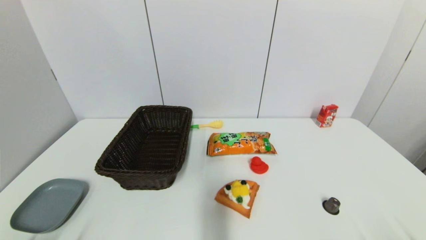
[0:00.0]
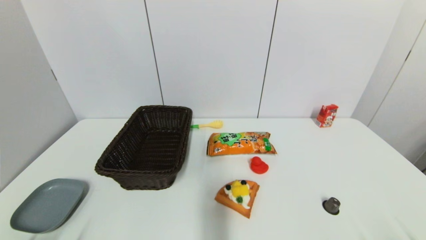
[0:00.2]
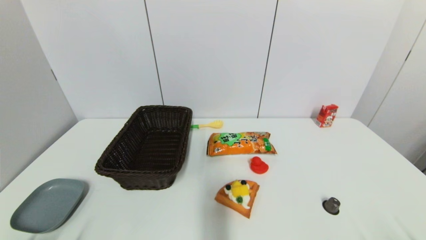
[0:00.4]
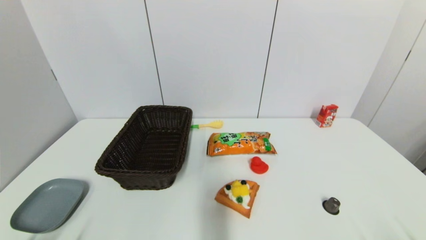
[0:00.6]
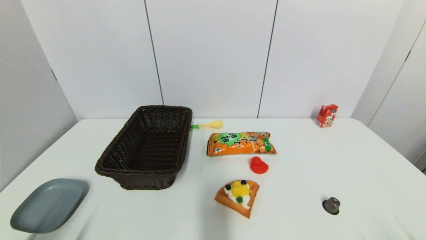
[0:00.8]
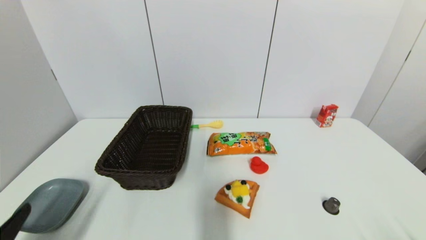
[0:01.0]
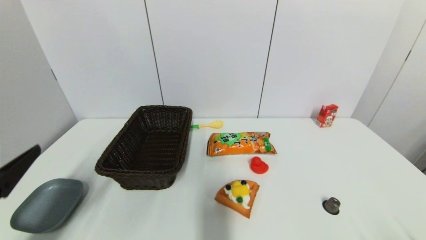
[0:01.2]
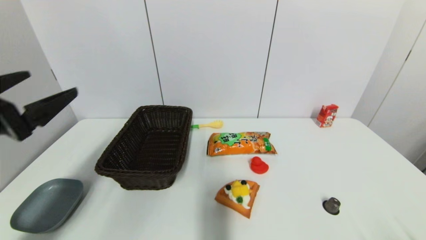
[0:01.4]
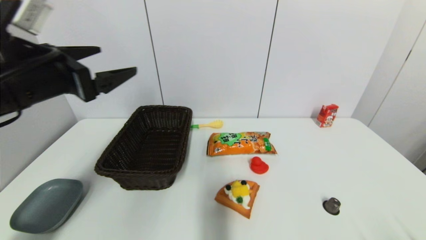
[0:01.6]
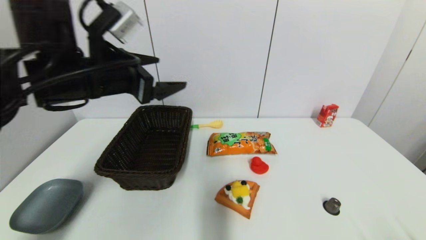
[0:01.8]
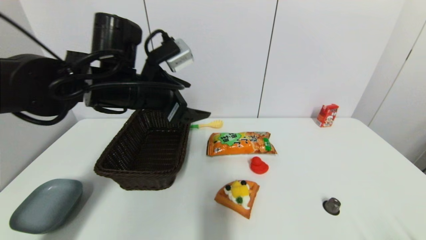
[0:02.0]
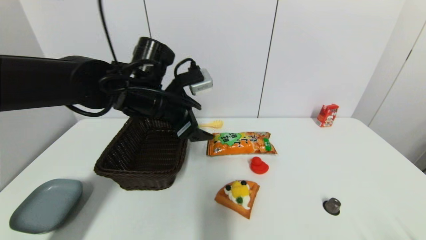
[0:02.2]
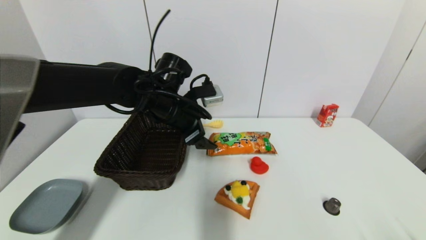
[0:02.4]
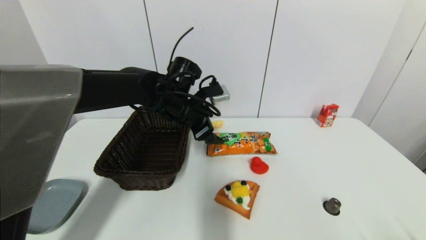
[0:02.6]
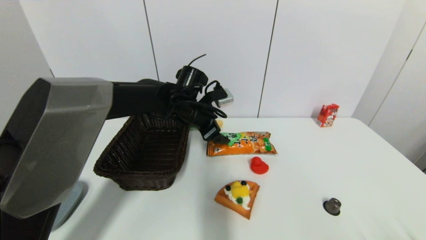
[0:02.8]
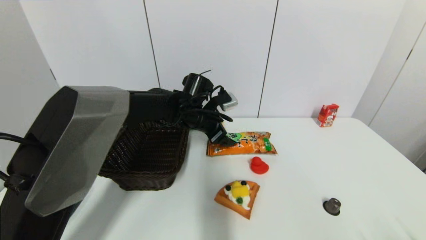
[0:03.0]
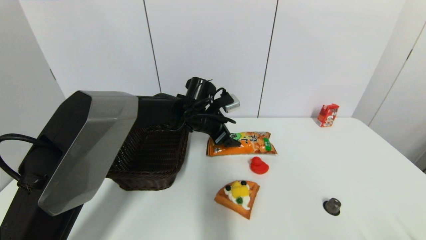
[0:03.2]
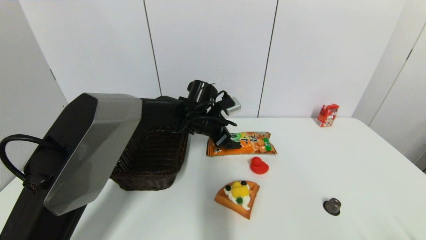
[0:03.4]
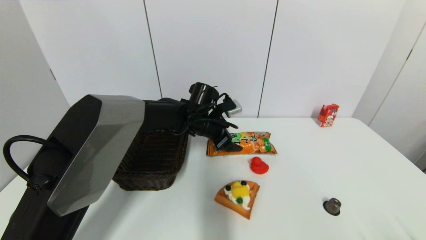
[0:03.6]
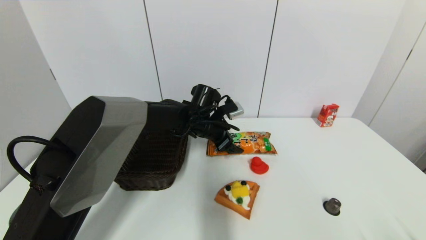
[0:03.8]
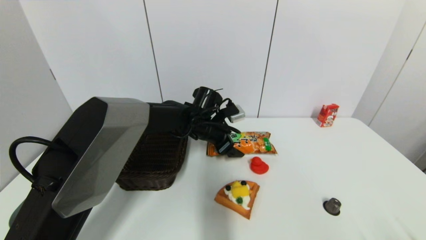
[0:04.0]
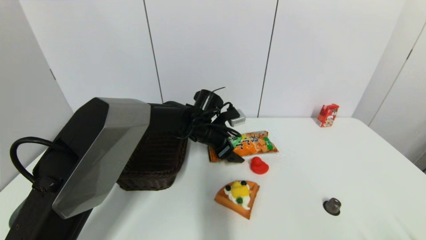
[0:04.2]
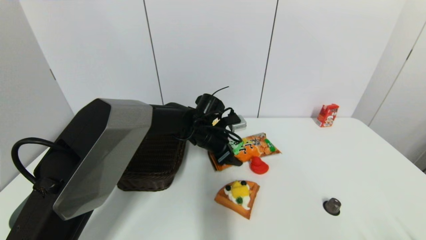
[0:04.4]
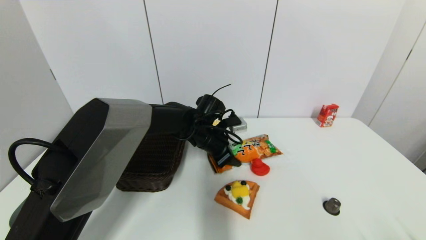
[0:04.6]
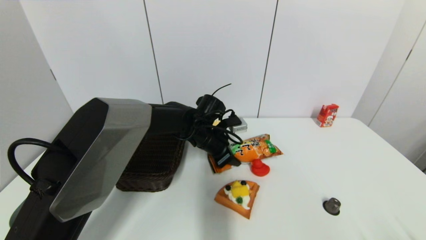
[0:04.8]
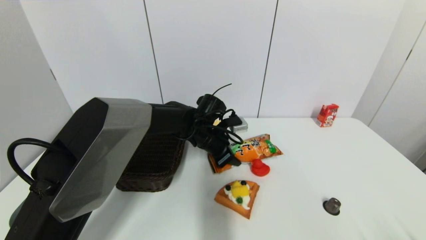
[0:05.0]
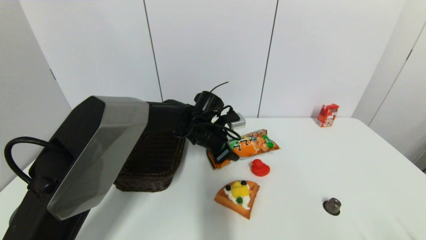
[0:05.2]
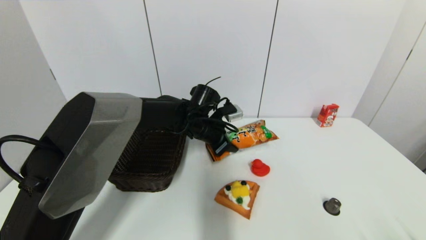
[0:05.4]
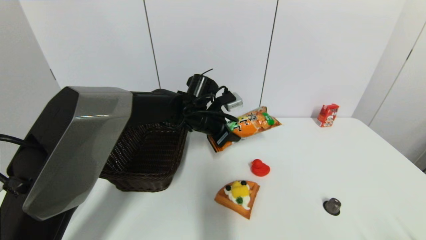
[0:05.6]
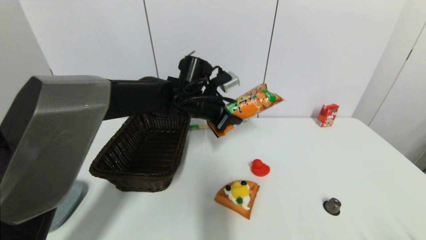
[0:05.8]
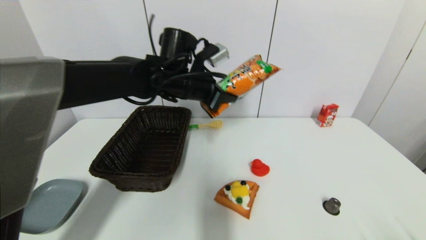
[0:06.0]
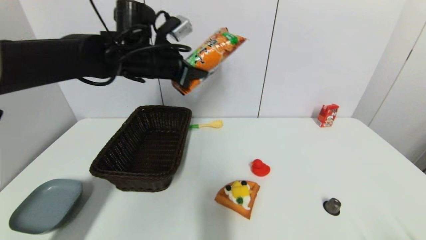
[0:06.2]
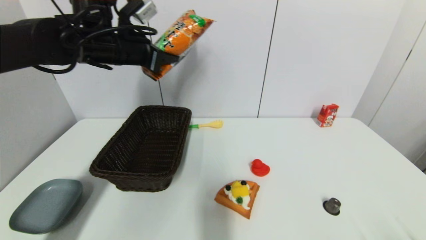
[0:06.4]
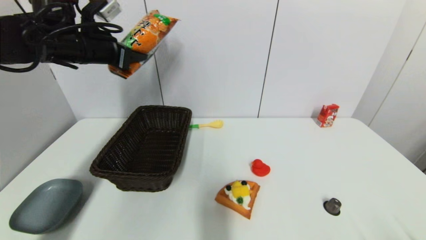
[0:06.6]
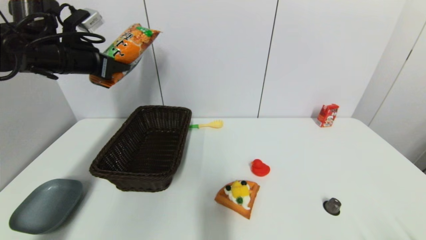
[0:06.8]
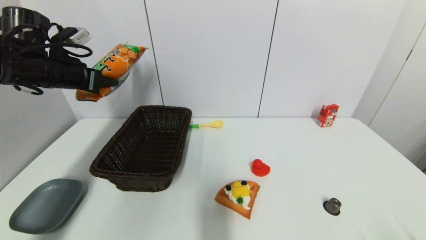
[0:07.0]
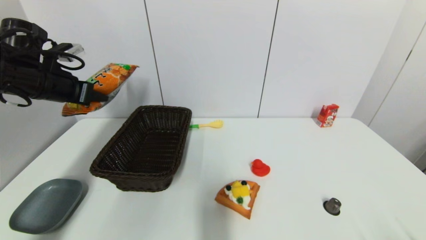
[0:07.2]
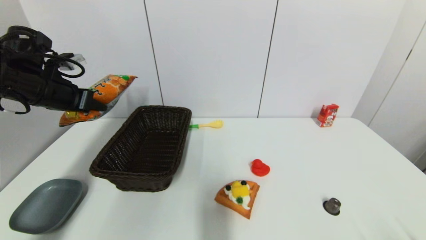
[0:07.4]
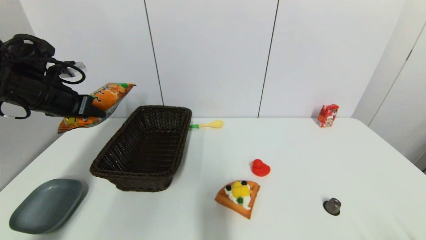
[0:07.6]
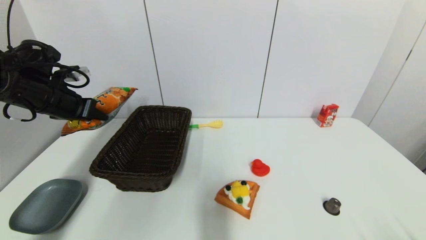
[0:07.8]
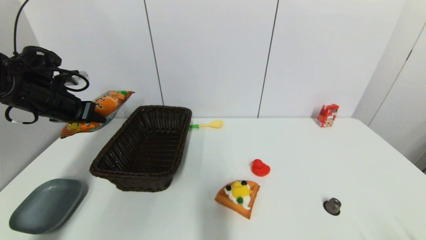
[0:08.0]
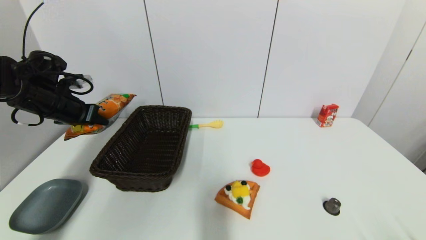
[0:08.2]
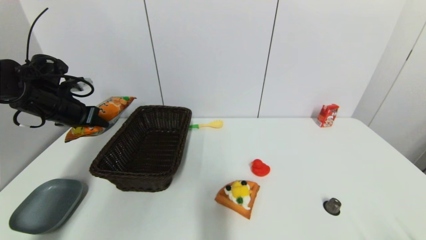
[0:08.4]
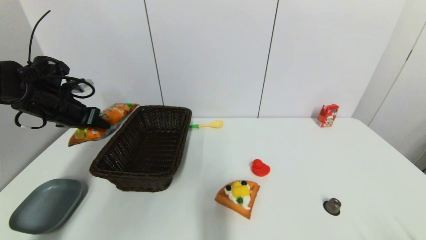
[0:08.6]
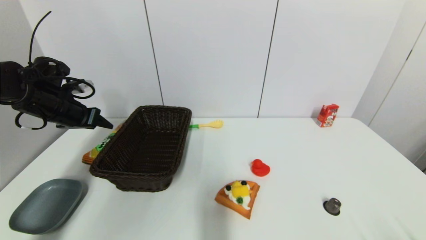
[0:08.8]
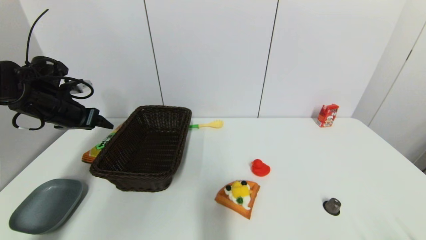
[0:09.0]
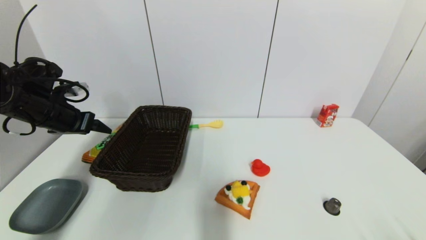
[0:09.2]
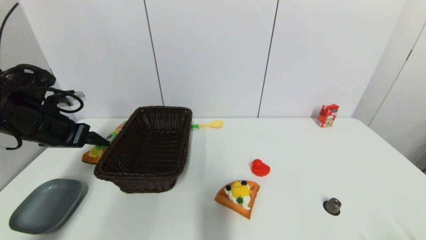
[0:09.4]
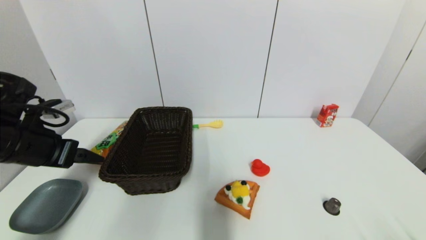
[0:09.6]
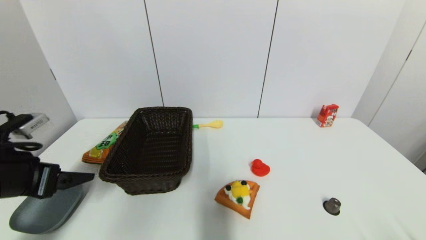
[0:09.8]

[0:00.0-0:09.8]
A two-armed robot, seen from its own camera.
Step, 0:01.0 to 0:04.8: Grasp the cookie with left gripper.
Step, 0:05.2 to 0:08.8: Place the cookie on the table with left gripper.
0:00.0 to 0:01.4: The left gripper is displaced upward and forward by roughly 30 cm.
0:01.4 to 0:02.8: The left gripper travels to the right, forward and downward by about 35 cm.
0:02.8 to 0:04.2: The left gripper heads downward, covering some 5 cm.
0:04.2 to 0:05.6: The left gripper is displaced upward by about 5 cm, and closes its fingers.
0:05.6 to 0:07.0: The left gripper heads to the left and upward, covering about 30 cm.
0:07.0 to 0:08.4: The left gripper travels downward by some 5 cm.
0:08.4 to 0:09.8: The left gripper goes roughly 20 cm backward, and opens its fingers.

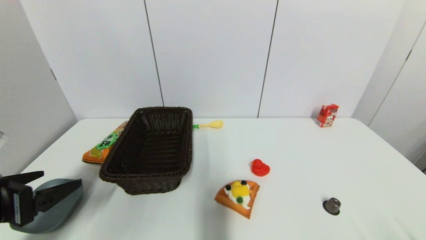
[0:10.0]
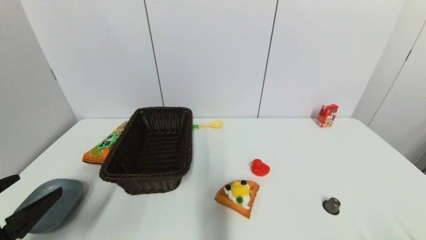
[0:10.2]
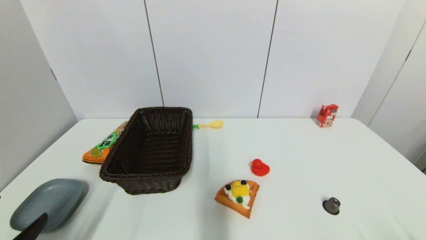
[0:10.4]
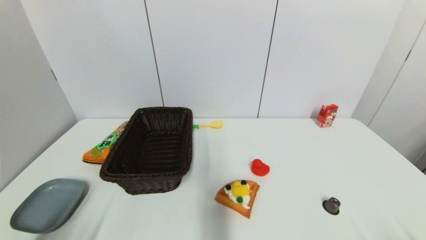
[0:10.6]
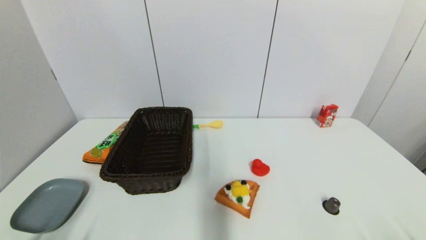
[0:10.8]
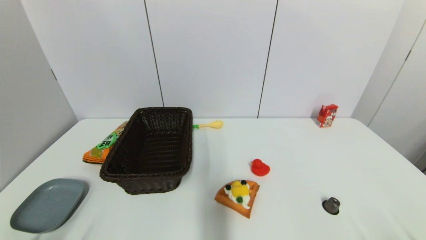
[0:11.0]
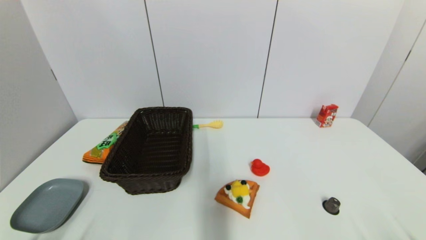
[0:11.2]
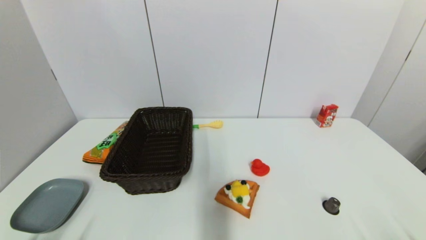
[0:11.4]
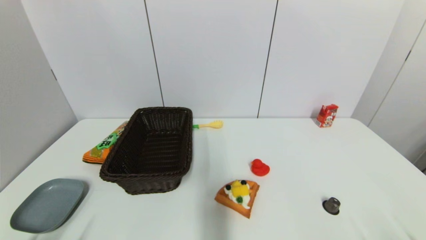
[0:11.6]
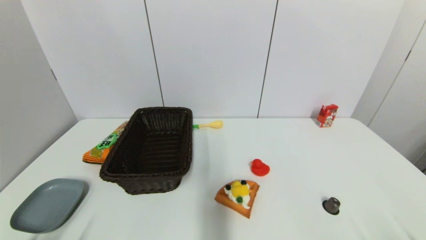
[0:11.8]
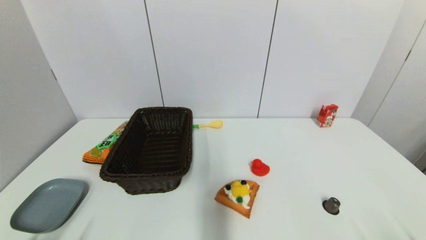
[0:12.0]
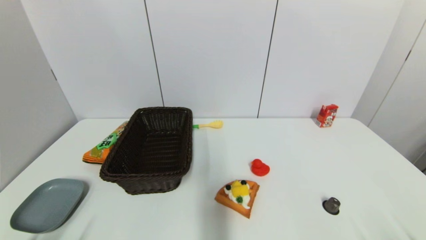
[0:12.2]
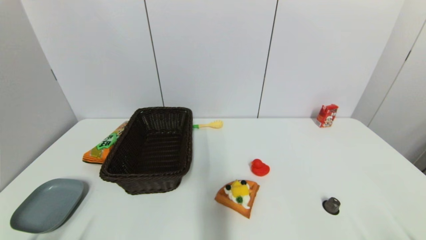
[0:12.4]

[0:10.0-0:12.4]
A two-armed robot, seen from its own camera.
0:10.0 to 0:11.2: The left gripper goes roughly 15 cm backward and downward.
0:11.2 to 0:12.4: Both grippers stay put.

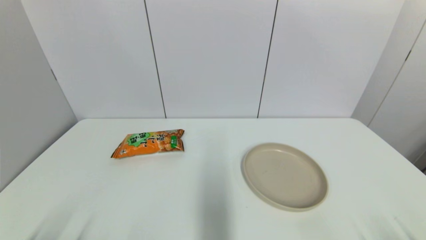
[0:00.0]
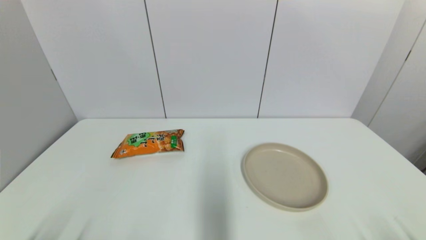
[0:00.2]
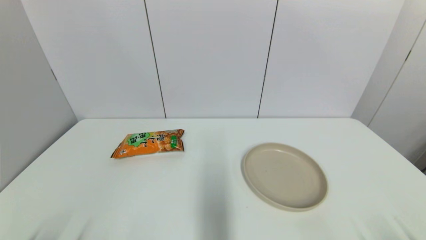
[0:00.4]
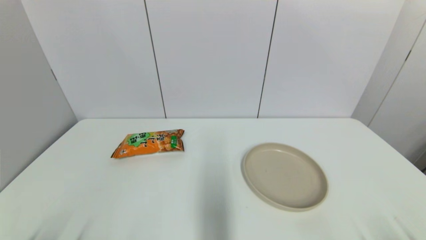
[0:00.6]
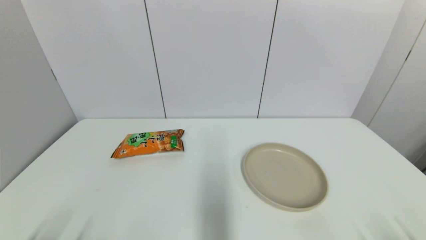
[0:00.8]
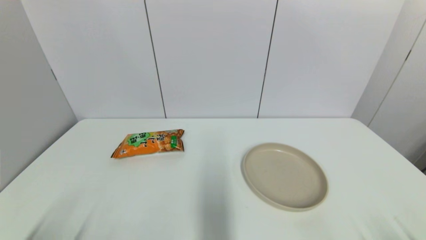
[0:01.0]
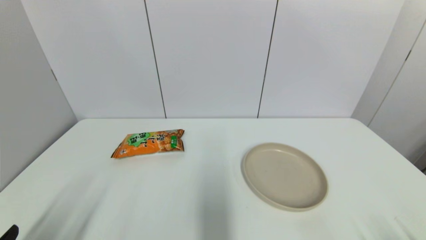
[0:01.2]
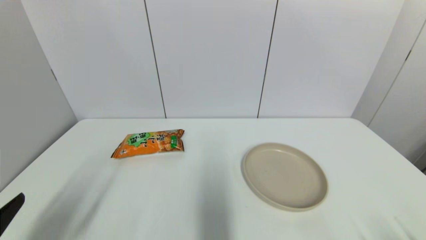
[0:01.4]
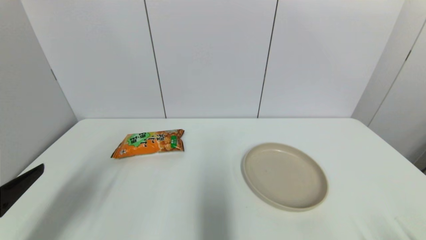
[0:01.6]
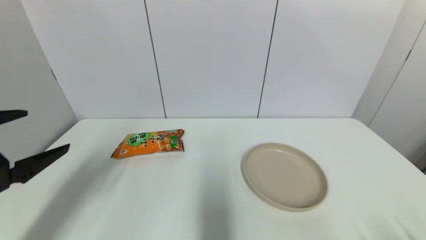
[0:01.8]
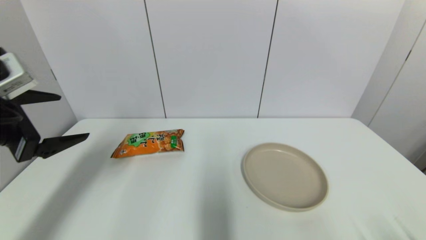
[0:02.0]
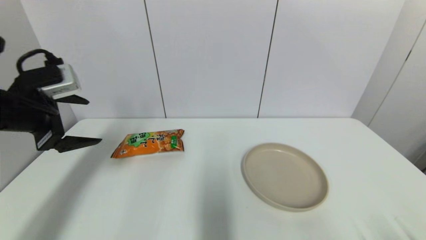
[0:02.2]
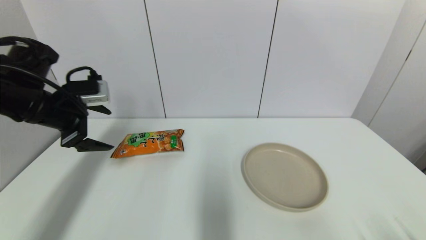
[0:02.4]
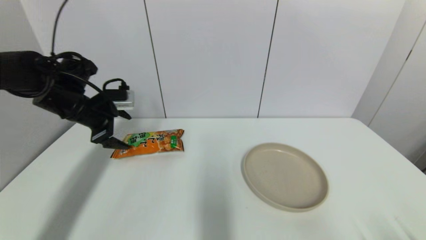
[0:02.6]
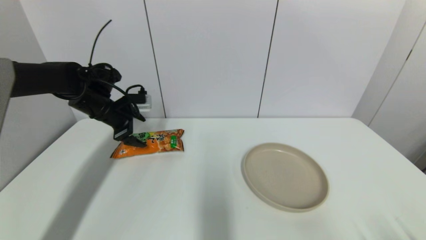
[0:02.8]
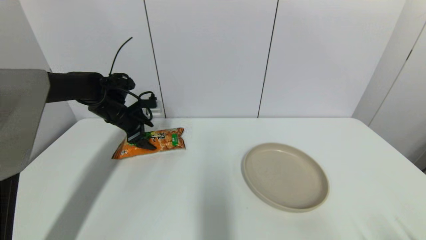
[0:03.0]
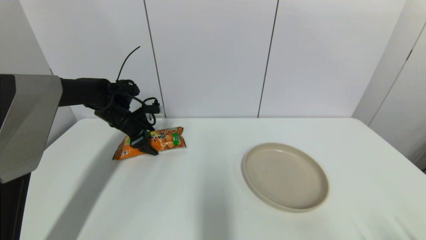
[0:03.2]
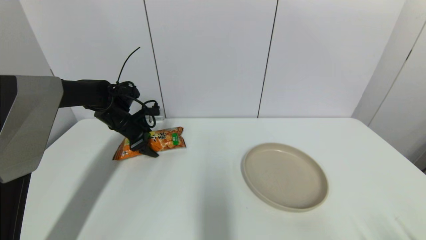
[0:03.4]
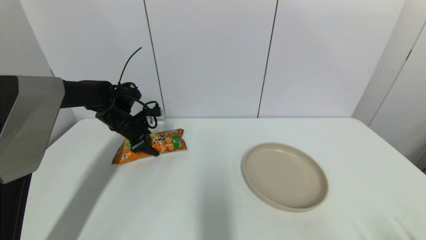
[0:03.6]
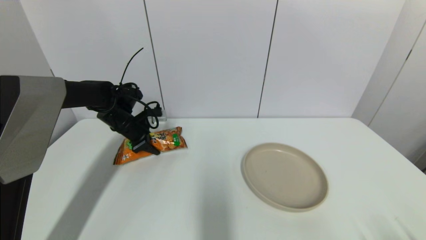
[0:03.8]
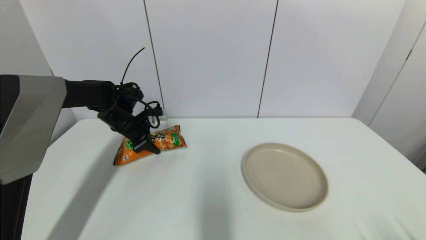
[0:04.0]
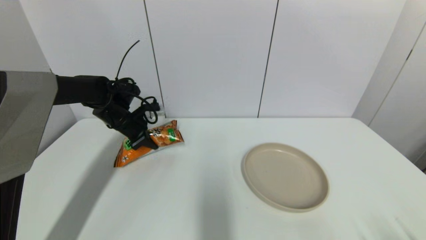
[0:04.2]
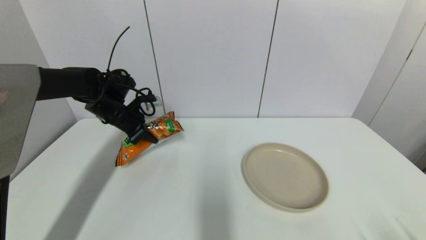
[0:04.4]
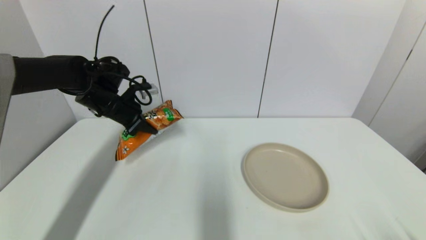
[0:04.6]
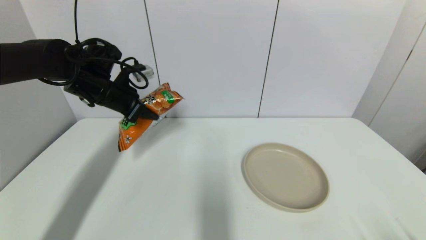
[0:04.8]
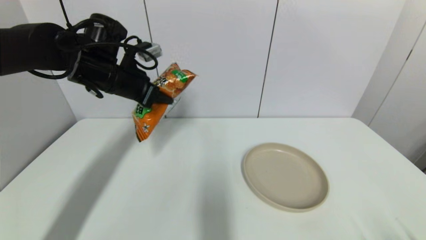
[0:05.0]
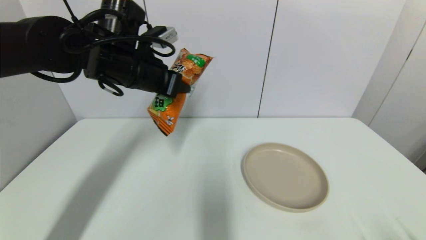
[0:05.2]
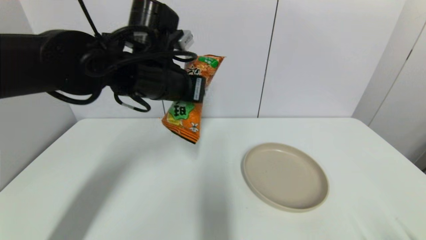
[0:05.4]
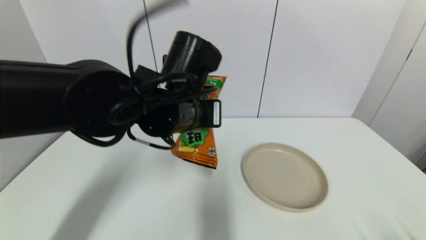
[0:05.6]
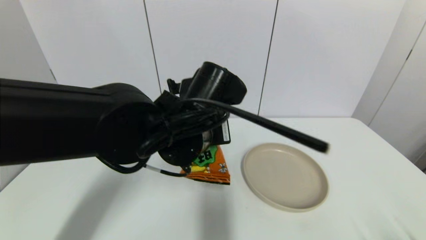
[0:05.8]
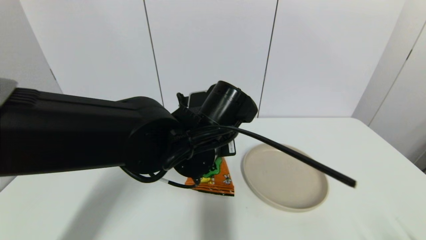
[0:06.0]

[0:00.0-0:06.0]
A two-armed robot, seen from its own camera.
Step, 0:01.2 to 0:04.0: Grasp the cookie with left gripper.
0:00.0 to 0:01.6: The left gripper travels upward and forward by roughly 20 cm.
0:01.6 to 0:03.0: The left gripper goes about 35 cm forward.
0:03.0 to 0:04.4: The left gripper closes its fingers.
0:04.4 to 0:06.0: The left gripper moves to the right and backward, approximately 30 cm.
